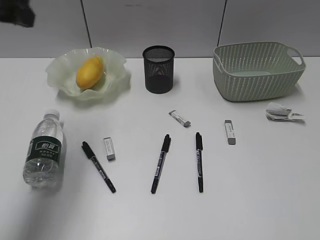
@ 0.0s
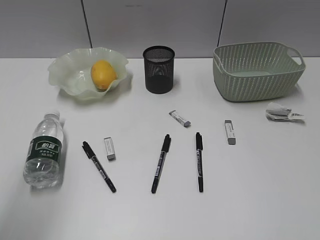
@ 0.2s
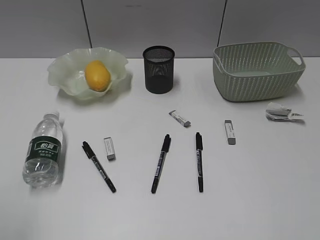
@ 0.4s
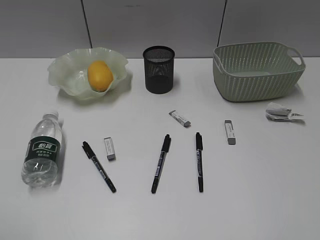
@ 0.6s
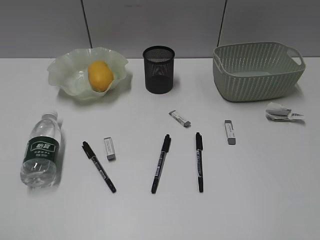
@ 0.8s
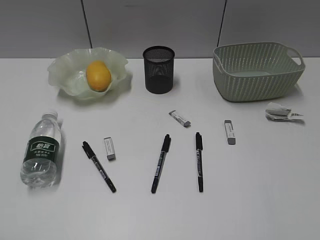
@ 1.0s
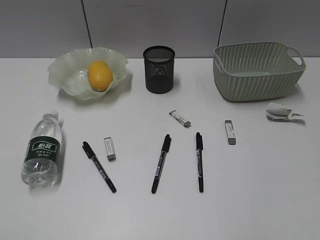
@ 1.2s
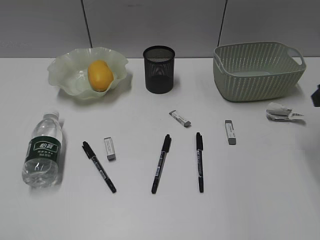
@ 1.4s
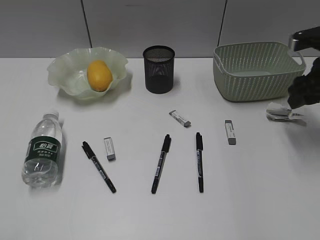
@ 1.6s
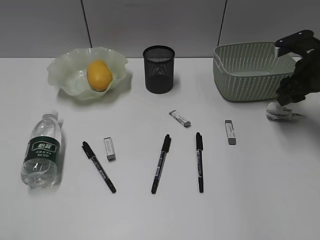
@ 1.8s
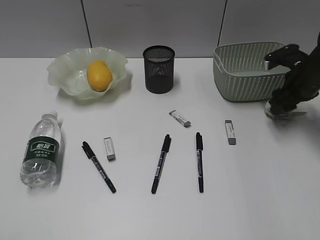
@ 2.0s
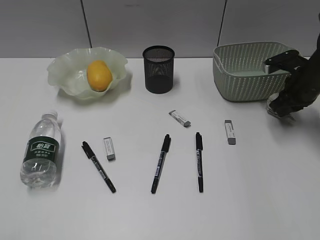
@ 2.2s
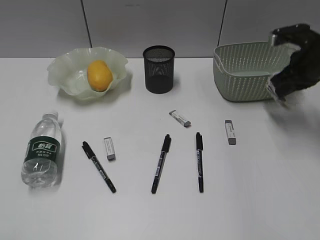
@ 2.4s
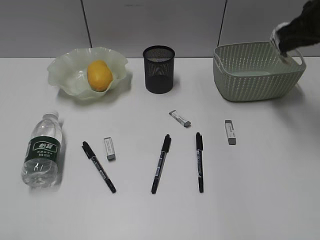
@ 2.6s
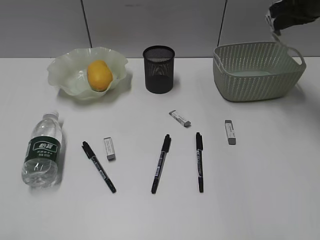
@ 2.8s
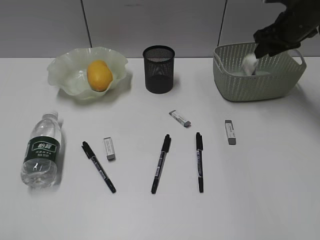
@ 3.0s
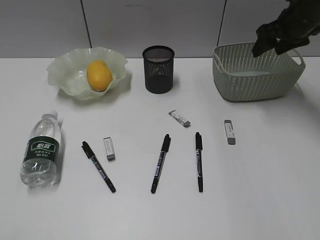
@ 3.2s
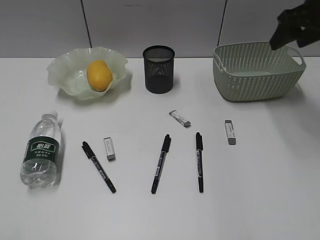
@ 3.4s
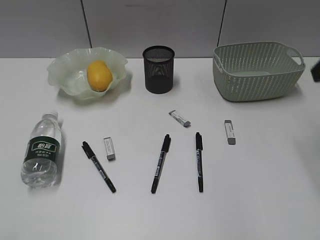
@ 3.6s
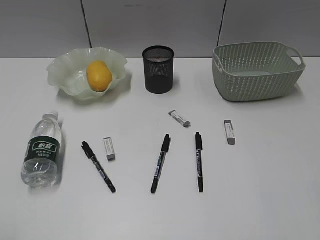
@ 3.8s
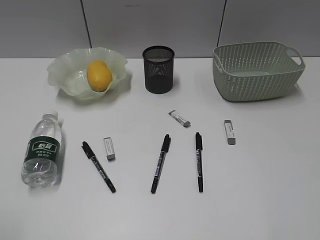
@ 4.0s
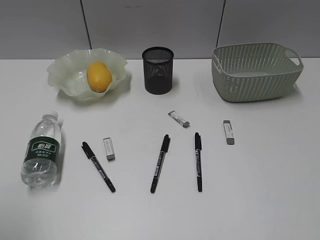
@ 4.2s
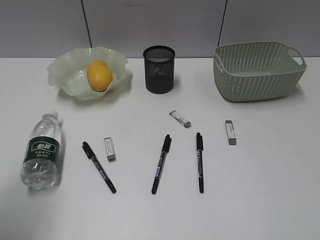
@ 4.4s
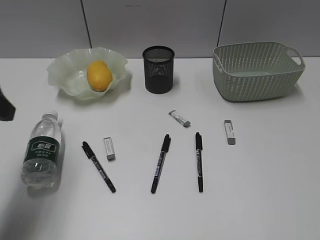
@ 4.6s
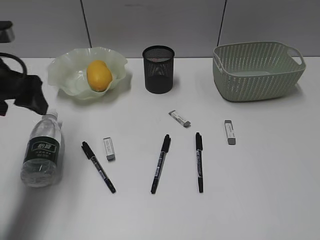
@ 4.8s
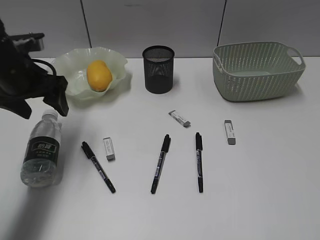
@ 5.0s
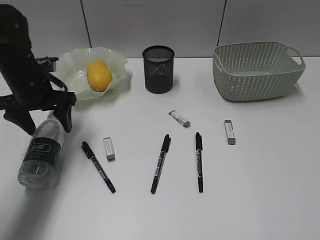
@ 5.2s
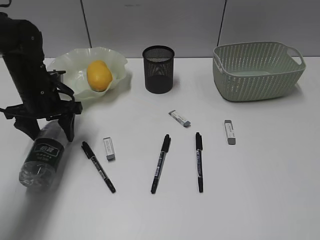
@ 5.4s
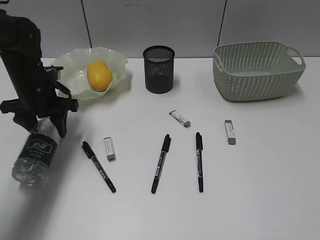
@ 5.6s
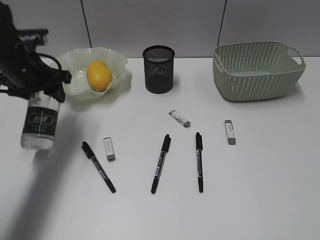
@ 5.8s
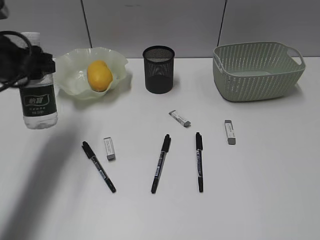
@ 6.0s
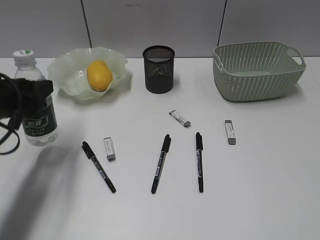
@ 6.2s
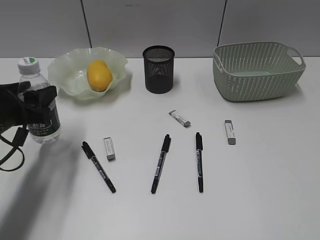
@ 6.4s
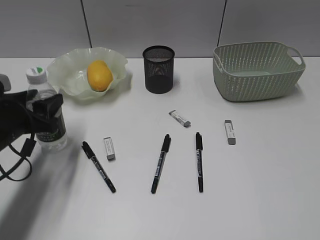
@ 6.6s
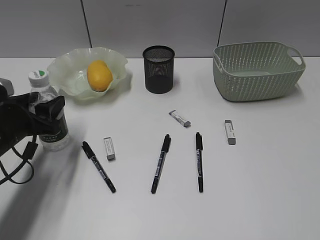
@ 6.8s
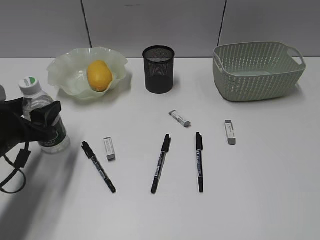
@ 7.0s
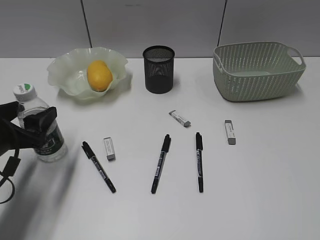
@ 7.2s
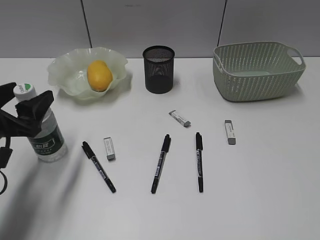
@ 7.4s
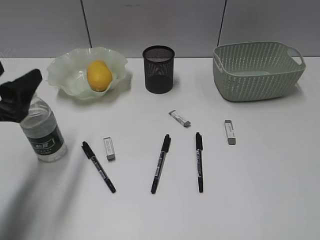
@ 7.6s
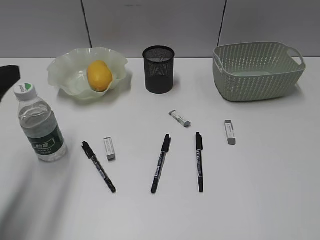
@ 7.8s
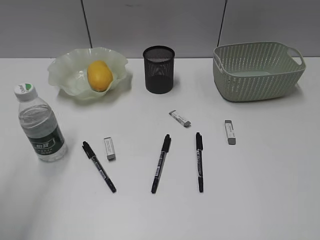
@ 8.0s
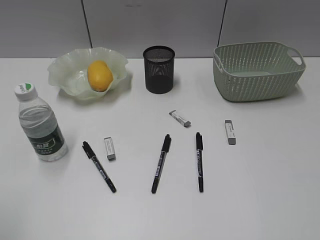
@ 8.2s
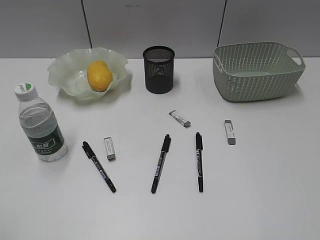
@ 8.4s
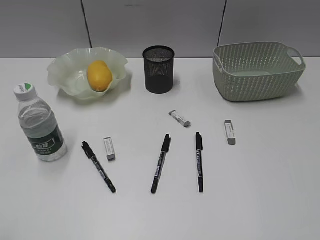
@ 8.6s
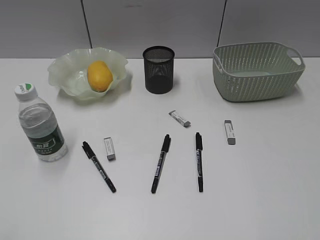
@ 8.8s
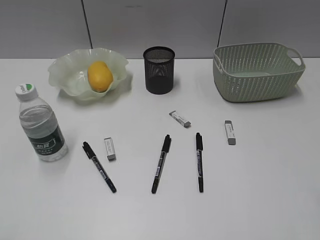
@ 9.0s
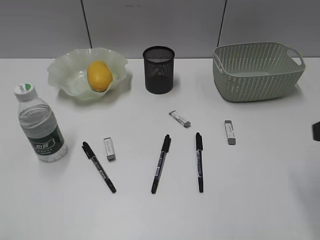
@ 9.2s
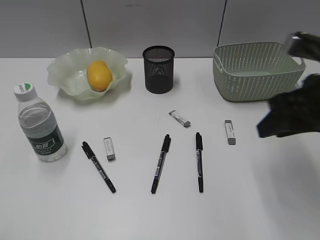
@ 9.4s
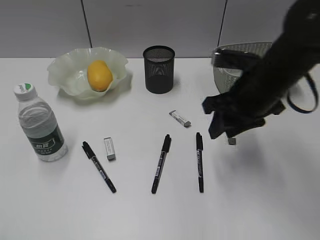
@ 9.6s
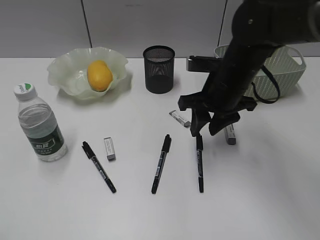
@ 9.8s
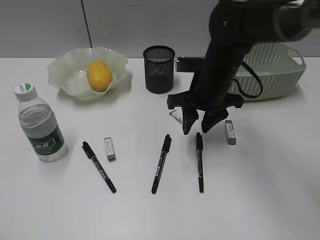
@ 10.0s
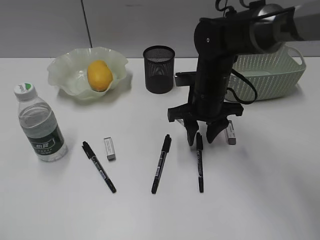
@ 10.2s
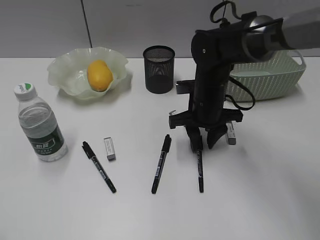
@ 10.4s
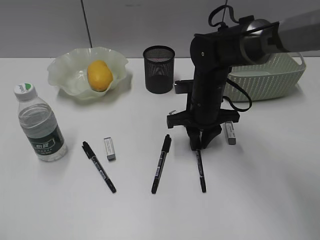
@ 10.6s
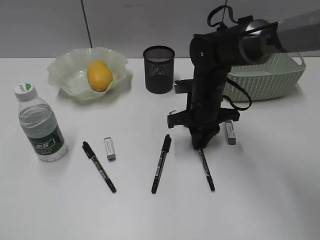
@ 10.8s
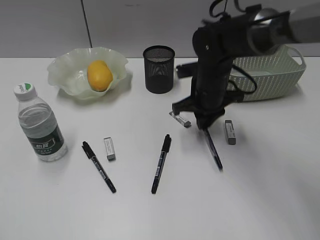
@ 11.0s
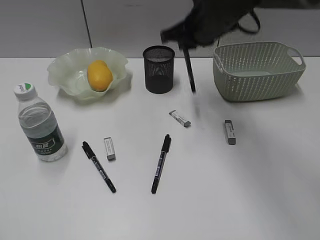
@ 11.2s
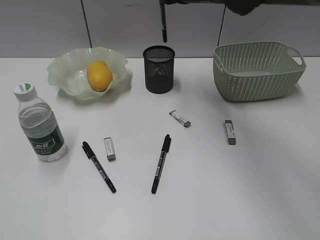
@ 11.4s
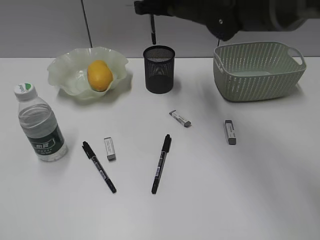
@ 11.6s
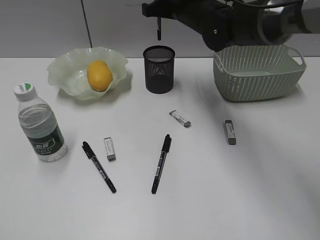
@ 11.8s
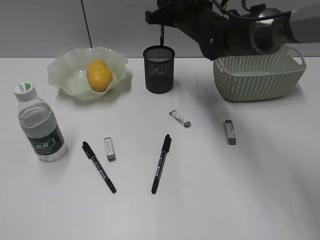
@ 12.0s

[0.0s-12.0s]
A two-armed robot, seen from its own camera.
Step, 0.0s to 2.2s: Grasp the waste paper with right gripper.
Step, 2.4s to 3.2s: Place the waste paper in the basket with right gripper.
Step, 3.4s to 5.4s: Grasp the bottle with left gripper.
Step, 5.6s to 7.4s: Stand the bottle with left gripper.
Step, 7.6s to 11.0s: Grasp the black pen with right gripper.
0.0s to 1.6s: The left gripper moves backward, roughly 25 cm, while the right gripper shifts some 35 cm forward, and opens its fingers.
1.6s to 3.0s: The right gripper swings up and down, about 15 cm each way, with 2 reversals, and closes and opens again.
3.0s to 4.4s: The right gripper moves backward, some 50 cm, while the left gripper goes about 15 cm forward.
4.4s to 6.0s: The left gripper is displaced forward and downward by some 20 cm.
6.0s to 7.6s: The left gripper moves backward, some 10 cm, and goes downward and returns, approximately 10 cm each way.
7.6s to 9.0s: The left gripper heads backward and upward, covering roughly 25 cm. Meanwhile the right gripper travels forward by some 10 cm.
9.0s to 10.4s: The right gripper shifts about 40 cm forward, to the left and downward.
10.4s to 12.0s: The right gripper moves forward and upward, some 15 cm, and closes.

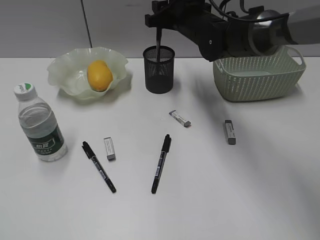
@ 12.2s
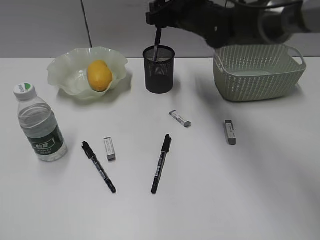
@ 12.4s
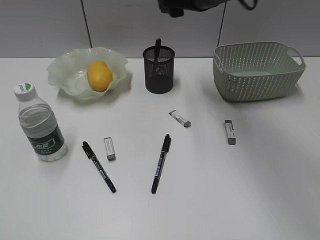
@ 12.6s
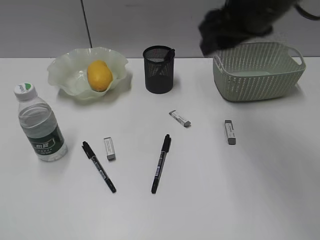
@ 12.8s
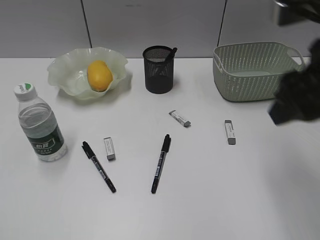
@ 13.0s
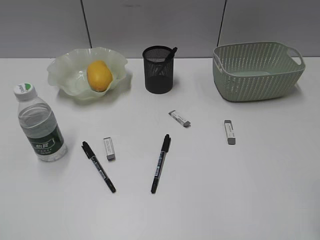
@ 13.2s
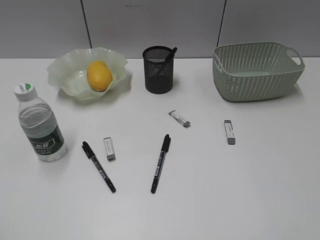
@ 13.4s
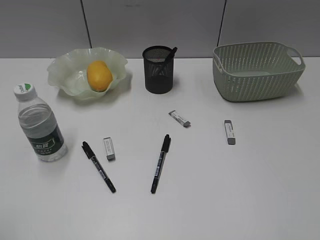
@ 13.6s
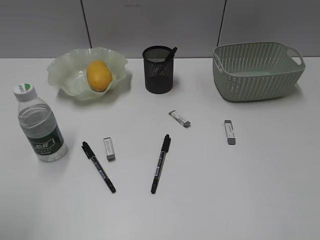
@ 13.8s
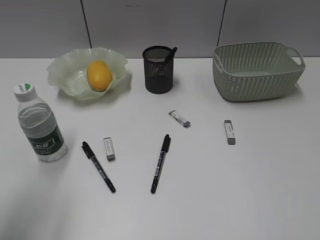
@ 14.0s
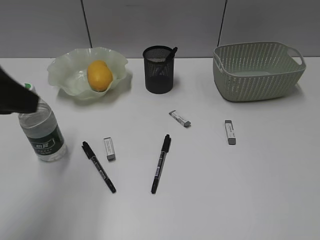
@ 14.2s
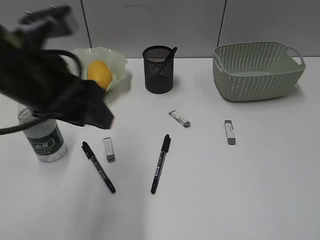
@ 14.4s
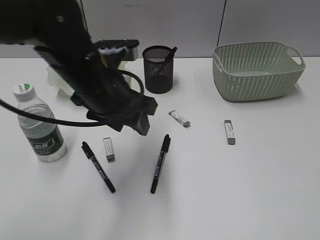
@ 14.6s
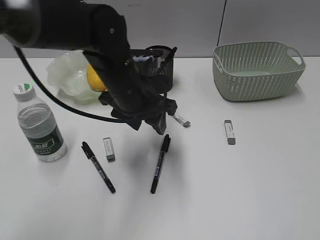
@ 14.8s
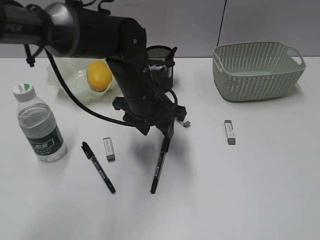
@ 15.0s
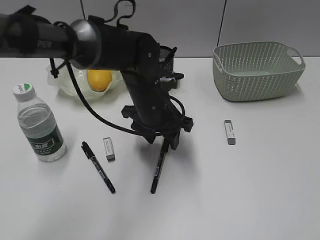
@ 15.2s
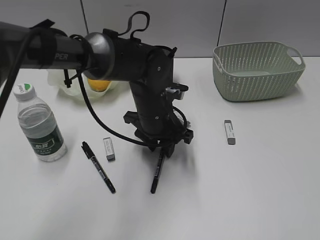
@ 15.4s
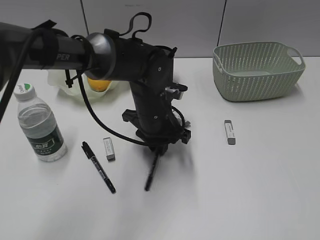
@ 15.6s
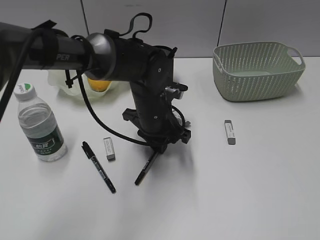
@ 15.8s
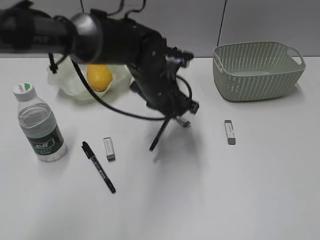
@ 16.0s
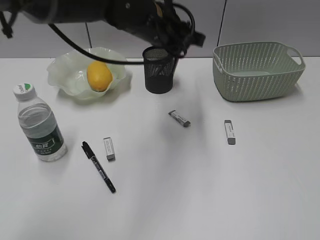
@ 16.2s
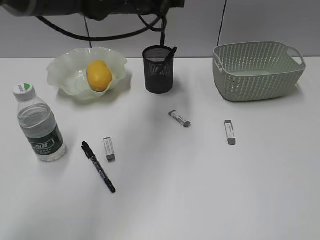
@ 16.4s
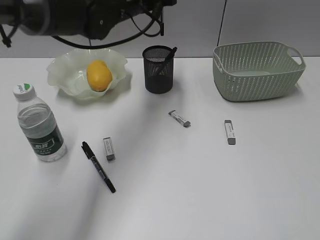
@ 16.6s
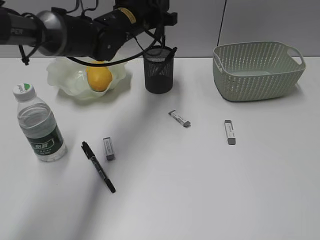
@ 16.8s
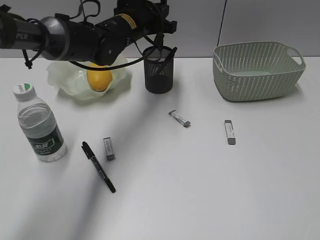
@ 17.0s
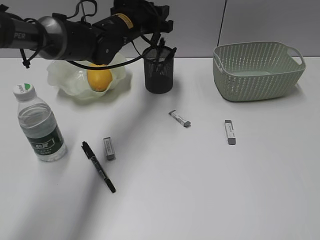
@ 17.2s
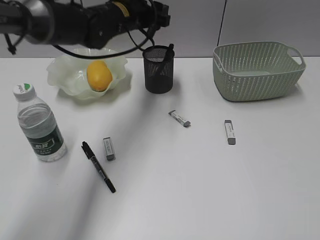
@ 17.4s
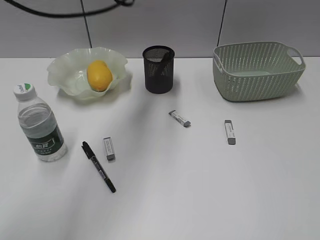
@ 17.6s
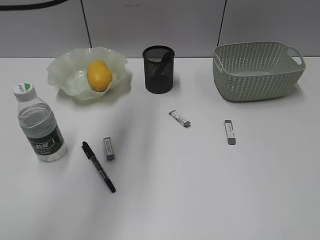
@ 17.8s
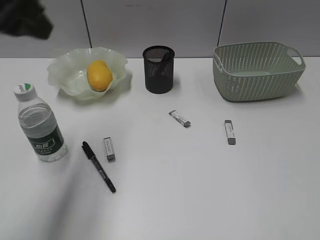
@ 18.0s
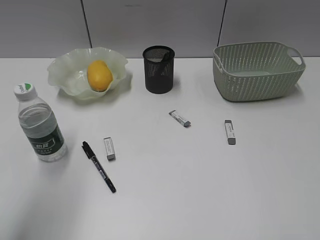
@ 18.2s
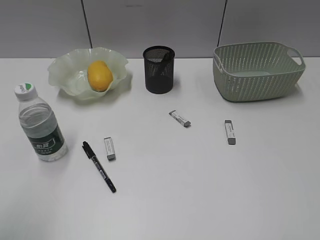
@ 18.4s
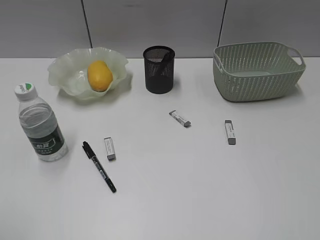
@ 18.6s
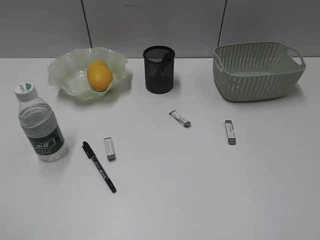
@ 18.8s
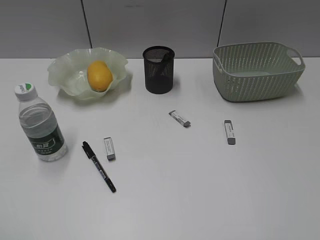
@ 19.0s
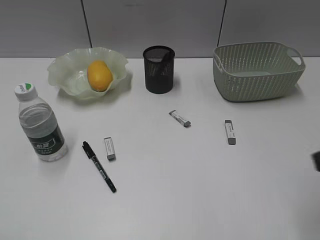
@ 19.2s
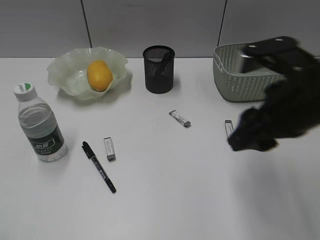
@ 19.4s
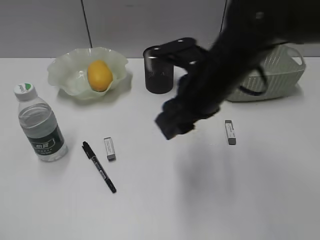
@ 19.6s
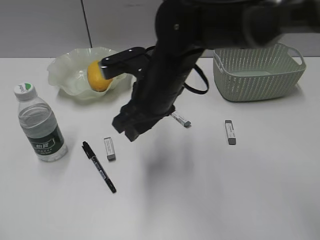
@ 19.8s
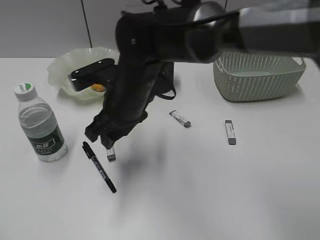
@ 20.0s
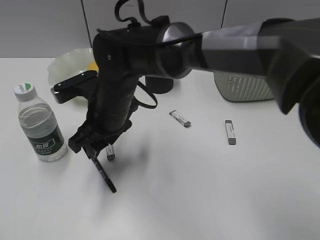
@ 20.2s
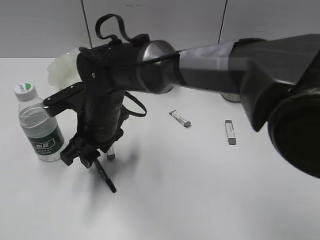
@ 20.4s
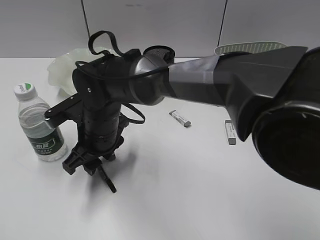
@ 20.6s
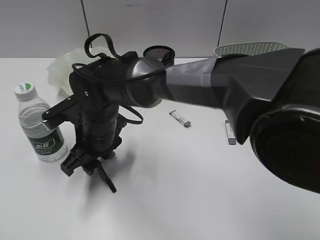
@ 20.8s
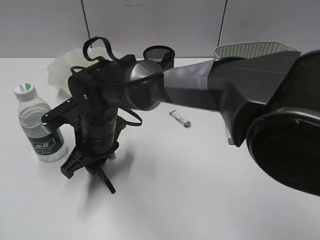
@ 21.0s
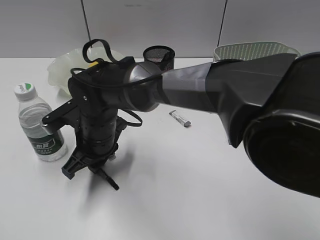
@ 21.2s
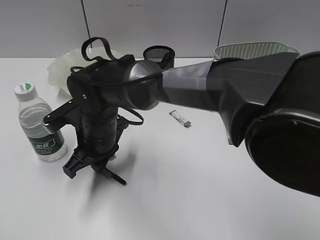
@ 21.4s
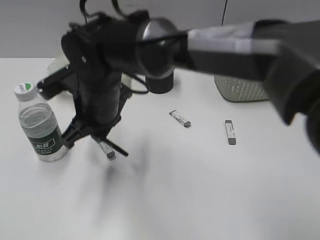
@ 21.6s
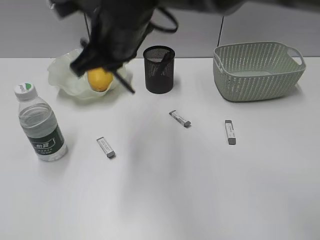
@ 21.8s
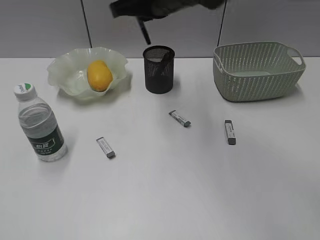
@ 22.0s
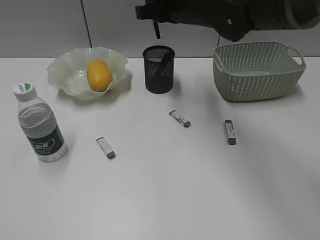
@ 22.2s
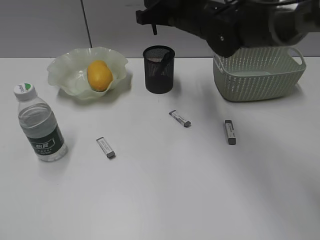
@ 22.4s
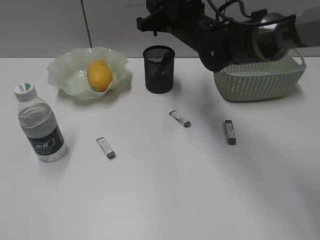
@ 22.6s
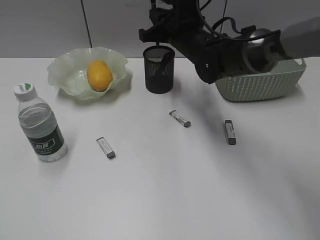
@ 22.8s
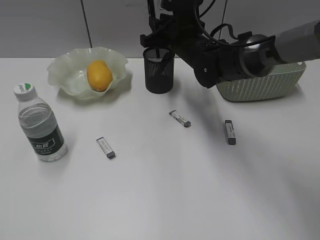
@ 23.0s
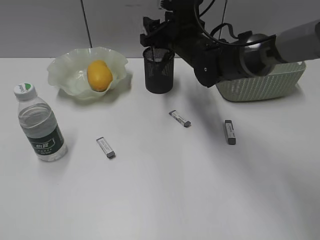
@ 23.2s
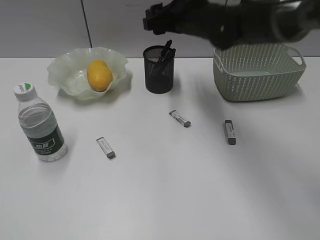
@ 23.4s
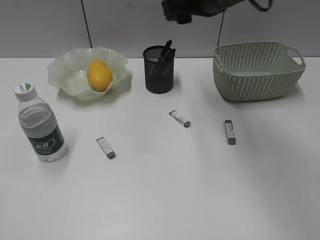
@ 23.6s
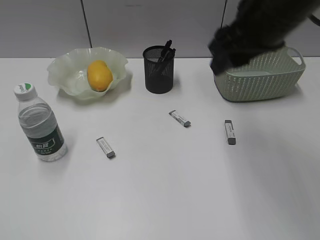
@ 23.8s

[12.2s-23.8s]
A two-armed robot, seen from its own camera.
Step, 12.8s to 15.8s: Grasp the black pen with left gripper.
Step, 16.0s to 17.6s: Place the black pen in pen holder with left gripper.
Step, 17.8s to 21.4s: Grasp the black pen with right gripper.
12.2s to 13.6s: The right gripper heads backward and to the right, covering some 50 cm.
13.6s to 15.0s: The left gripper shifts roughly 40 cm forward, to the right and downward, and opens.
15.0s to 16.6s: The left gripper shifts approximately 15 cm forward and upward, and closes.
16.6s to 18.0s: The left gripper goes about 30 cm backward, to the left and upward, and opens up.
18.0s to 19.4s: The left gripper goes approximately 30 cm backward and to the left, while the right gripper goes some 25 cm forward and to the left.
19.4s to 21.0s: The right gripper goes approximately 30 cm to the left and downward, and closes.
21.0s to 22.4s: The right gripper travels to the right, forward and upward by some 25 cm, and closes up.
22.4s to 23.8s: The right gripper goes some 20 cm backward, to the right and upward, and opens up.
